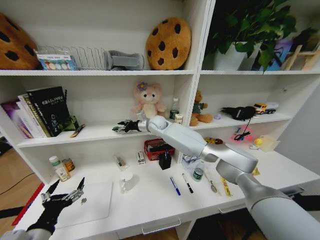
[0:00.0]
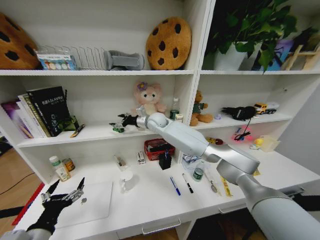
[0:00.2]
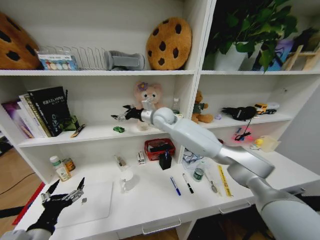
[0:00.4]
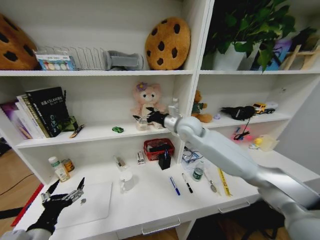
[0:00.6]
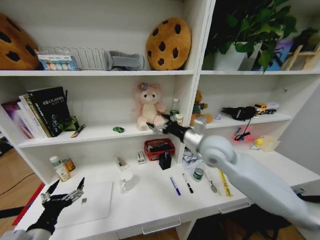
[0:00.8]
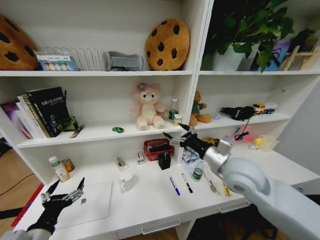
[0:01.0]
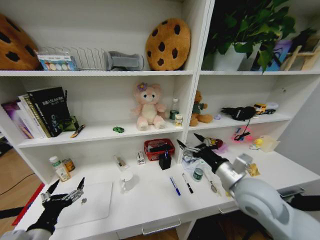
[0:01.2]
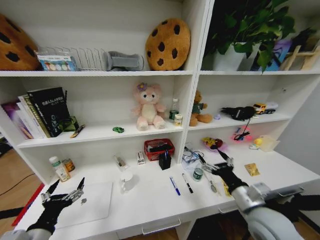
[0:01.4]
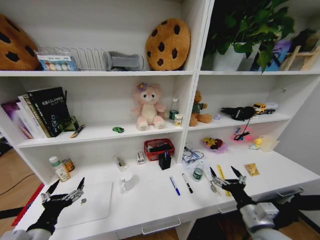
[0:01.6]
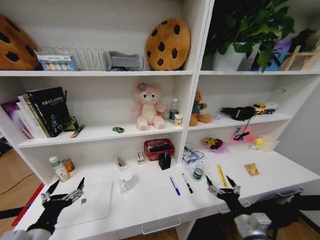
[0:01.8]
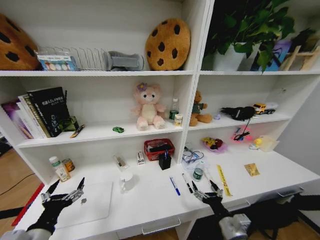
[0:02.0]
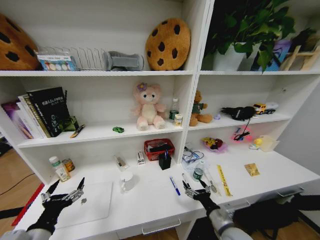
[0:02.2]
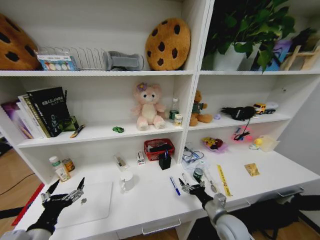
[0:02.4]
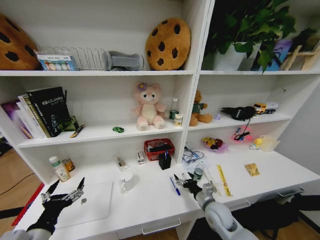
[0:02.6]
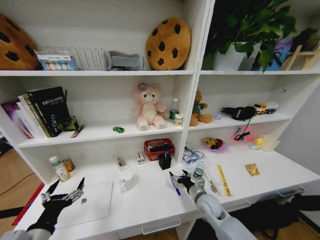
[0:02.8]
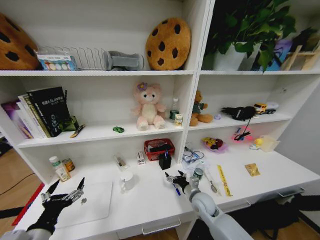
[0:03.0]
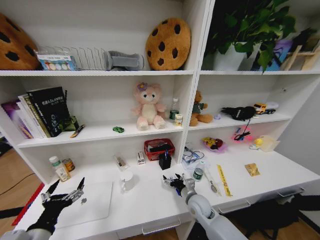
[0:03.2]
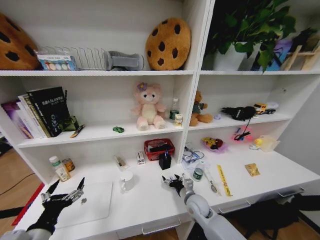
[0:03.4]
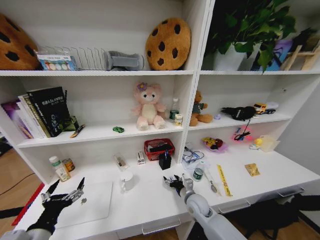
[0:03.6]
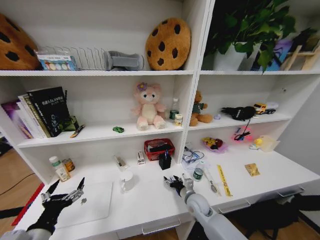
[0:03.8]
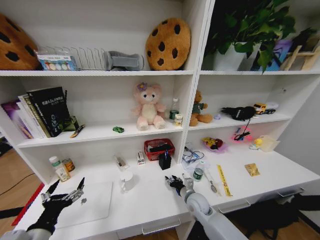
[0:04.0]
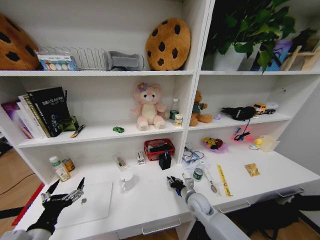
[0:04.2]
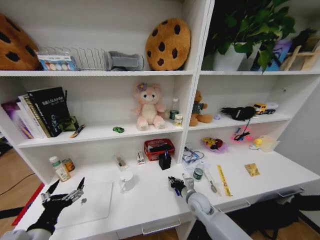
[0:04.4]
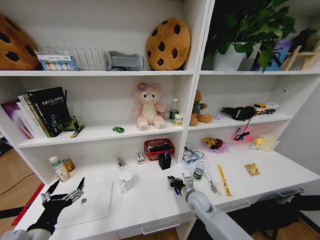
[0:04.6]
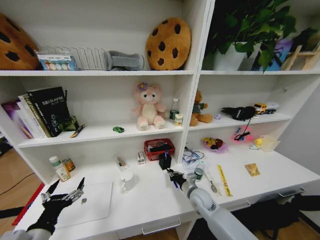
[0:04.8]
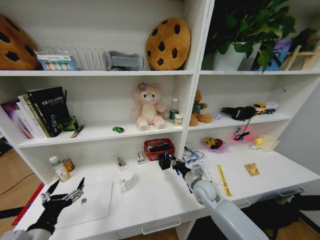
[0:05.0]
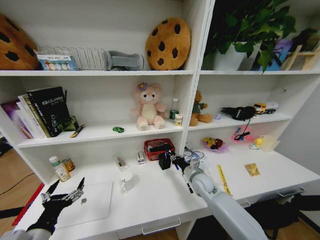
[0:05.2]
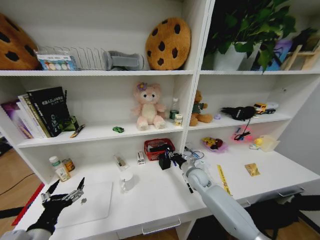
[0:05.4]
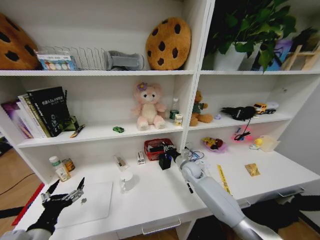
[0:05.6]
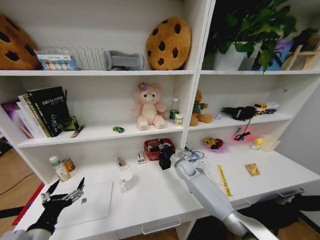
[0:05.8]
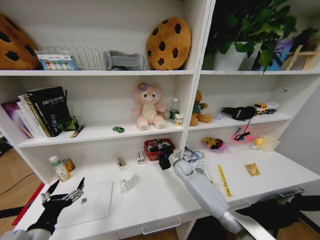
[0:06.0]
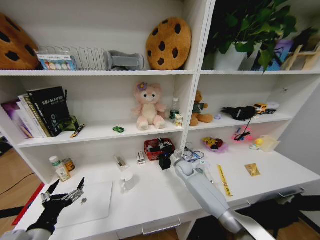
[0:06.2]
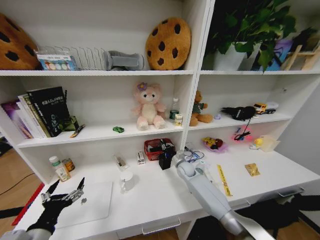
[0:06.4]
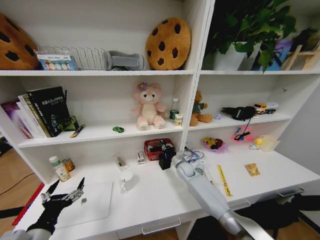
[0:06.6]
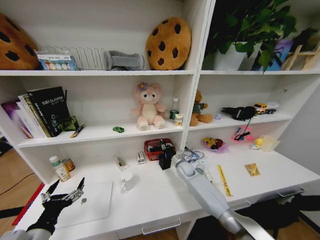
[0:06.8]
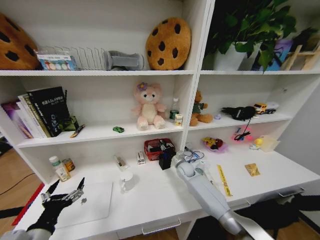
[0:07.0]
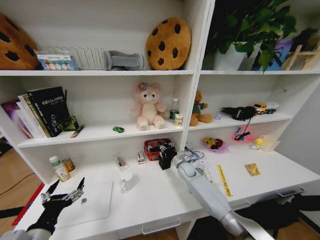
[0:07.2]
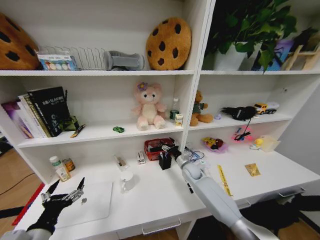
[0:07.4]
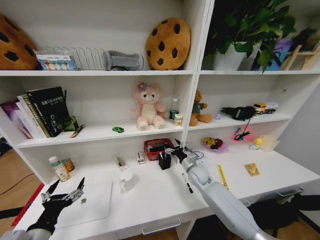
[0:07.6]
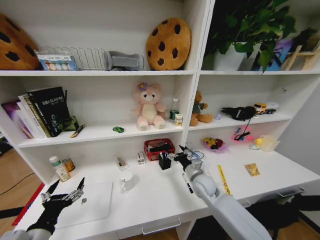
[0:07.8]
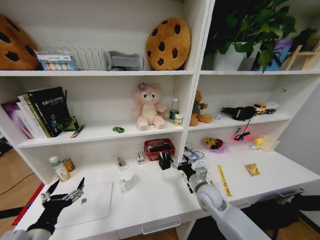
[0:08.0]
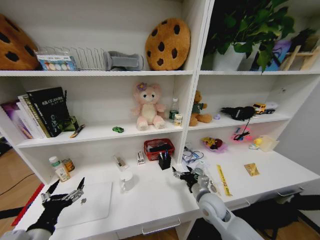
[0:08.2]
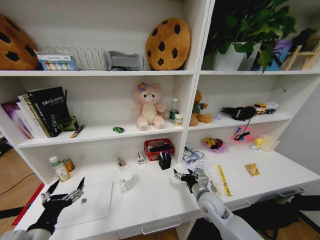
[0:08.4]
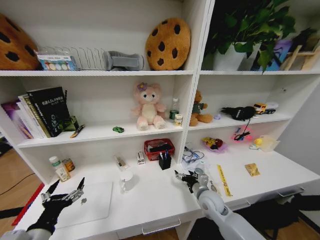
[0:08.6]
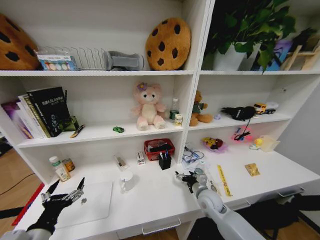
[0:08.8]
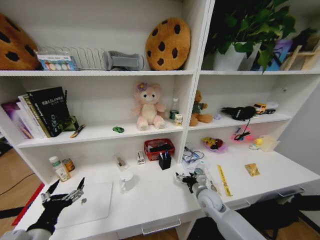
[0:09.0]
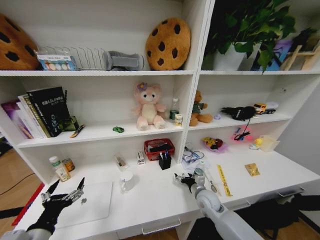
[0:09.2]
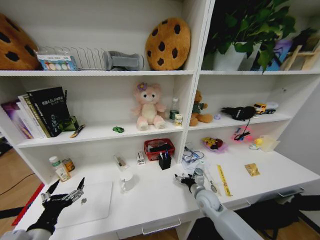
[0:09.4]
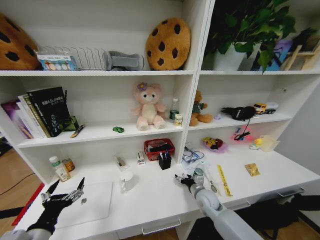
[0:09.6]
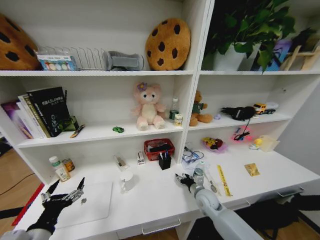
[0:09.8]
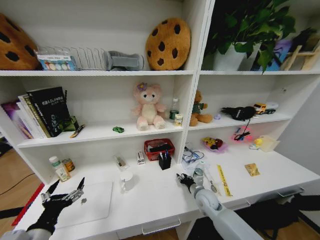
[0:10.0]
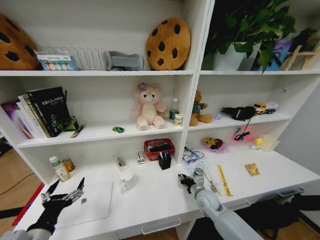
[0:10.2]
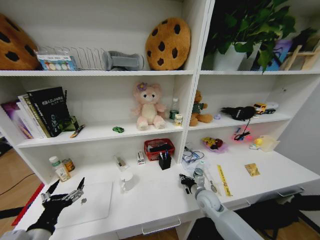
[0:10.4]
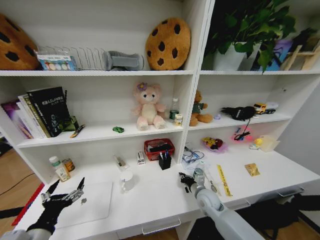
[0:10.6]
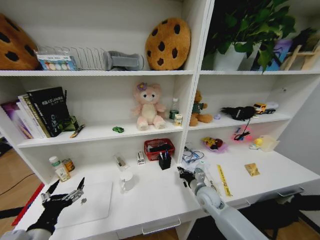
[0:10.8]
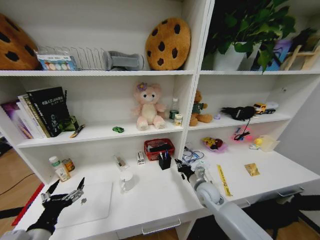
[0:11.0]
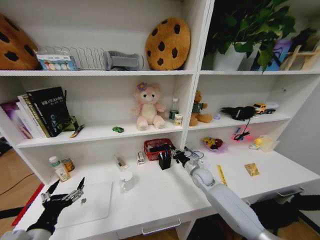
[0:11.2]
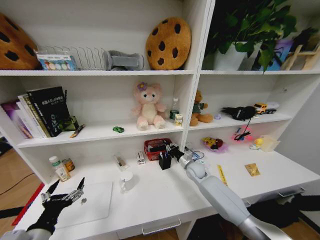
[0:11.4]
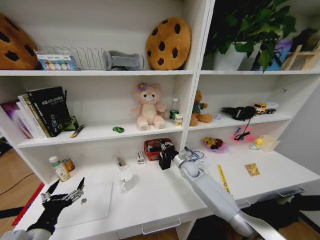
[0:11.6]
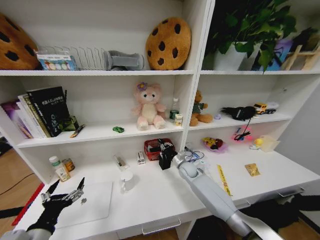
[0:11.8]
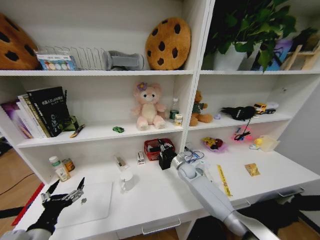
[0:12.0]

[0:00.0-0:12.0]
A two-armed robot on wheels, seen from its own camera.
Task of the whole recording: Organize the objects on the table.
0:00.0 to 0:01.6: The right gripper shifts roughly 50 cm backward and to the right, and opens up.
0:01.6 to 0:03.0: The right gripper moves forward, downward and to the left, some 20 cm.
0:03.0 to 0:04.4: The right gripper closes up.
0:04.4 to 0:06.0: The right gripper shifts about 15 cm forward.
0:06.0 to 0:07.6: The right gripper heads backward and to the right, covering approximately 10 cm, and opens up.
0:07.6 to 0:09.0: The right gripper heads backward, covering about 10 cm.
0:09.0 to 0:10.4: The right gripper closes its fingers.
0:10.4 to 0:12.0: The right gripper shifts about 15 cm forward.

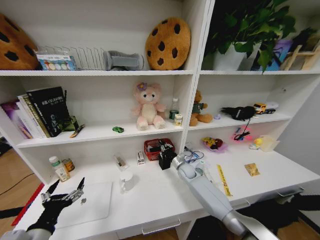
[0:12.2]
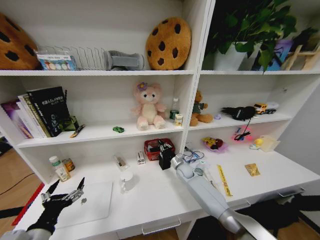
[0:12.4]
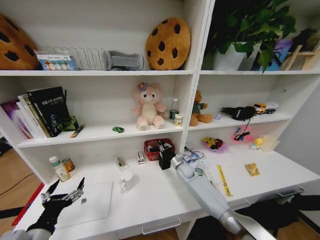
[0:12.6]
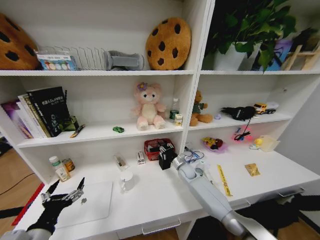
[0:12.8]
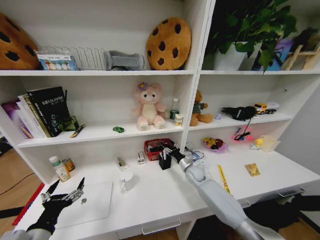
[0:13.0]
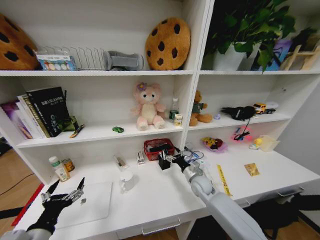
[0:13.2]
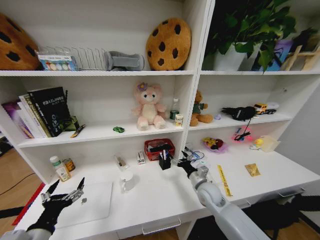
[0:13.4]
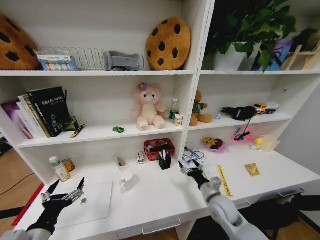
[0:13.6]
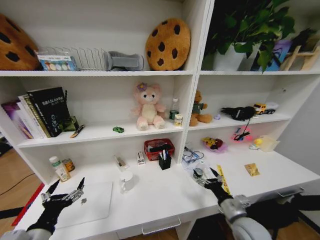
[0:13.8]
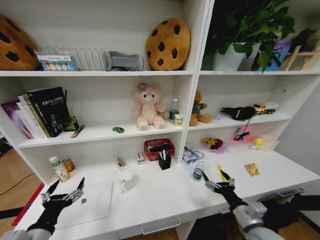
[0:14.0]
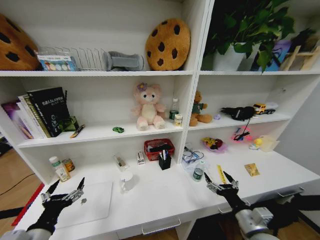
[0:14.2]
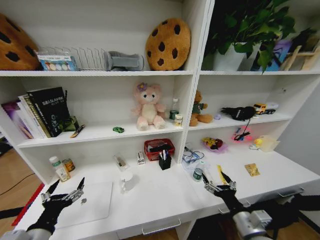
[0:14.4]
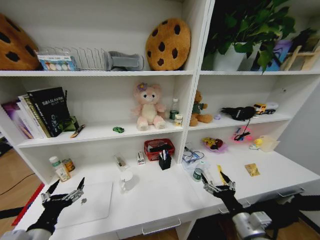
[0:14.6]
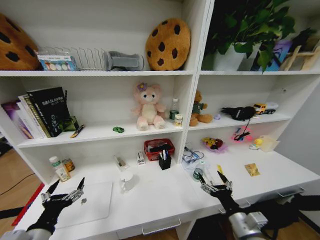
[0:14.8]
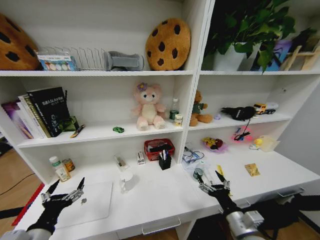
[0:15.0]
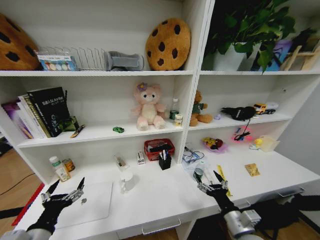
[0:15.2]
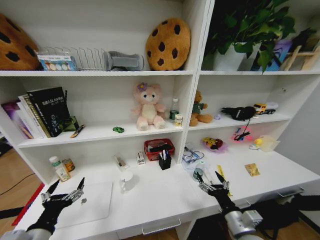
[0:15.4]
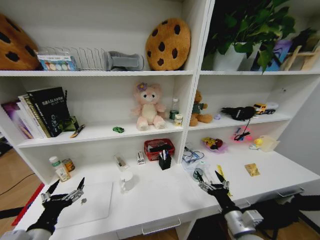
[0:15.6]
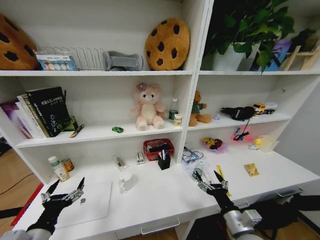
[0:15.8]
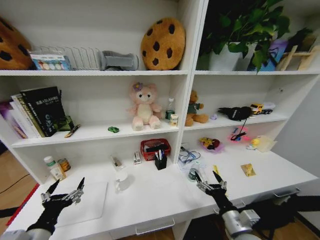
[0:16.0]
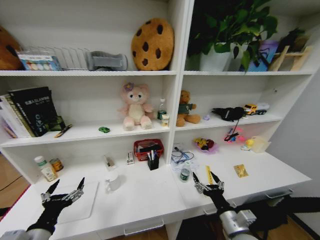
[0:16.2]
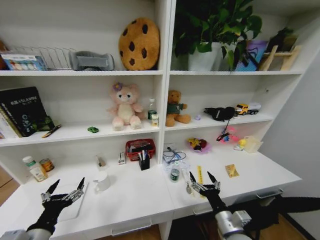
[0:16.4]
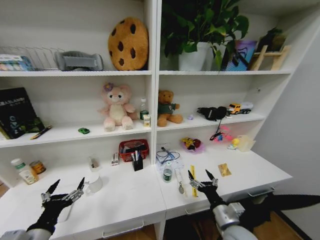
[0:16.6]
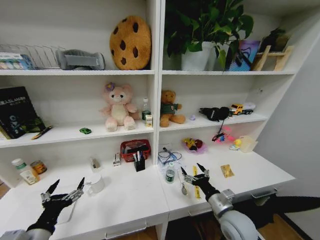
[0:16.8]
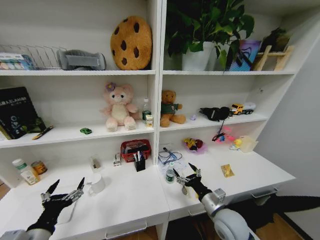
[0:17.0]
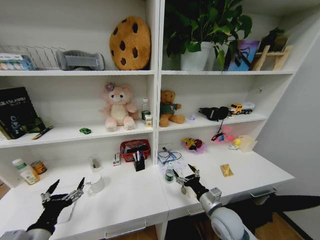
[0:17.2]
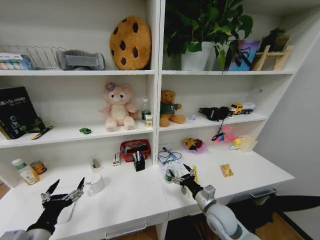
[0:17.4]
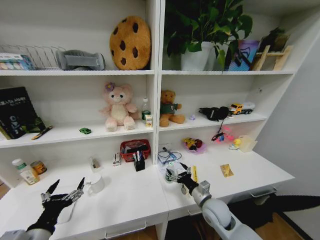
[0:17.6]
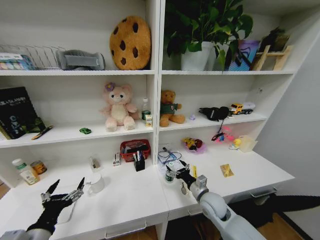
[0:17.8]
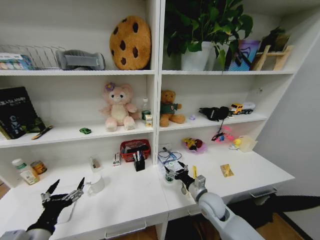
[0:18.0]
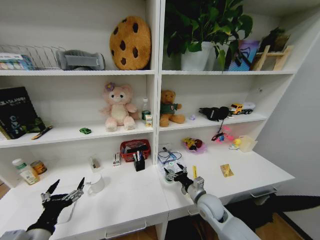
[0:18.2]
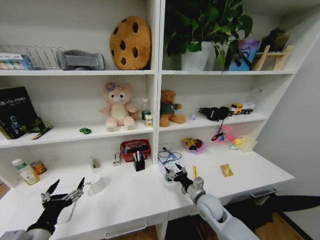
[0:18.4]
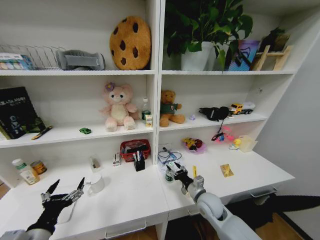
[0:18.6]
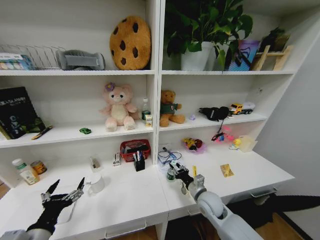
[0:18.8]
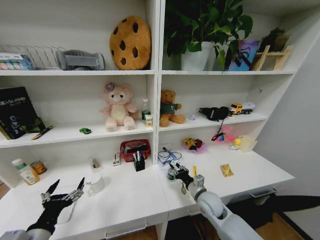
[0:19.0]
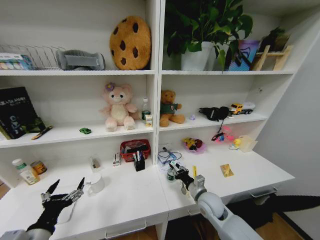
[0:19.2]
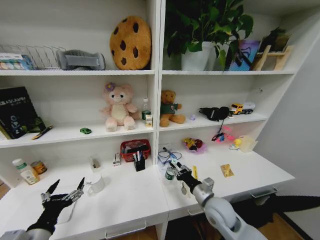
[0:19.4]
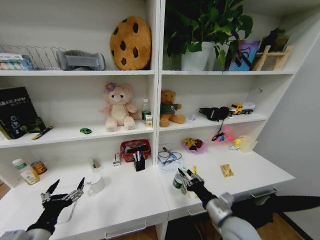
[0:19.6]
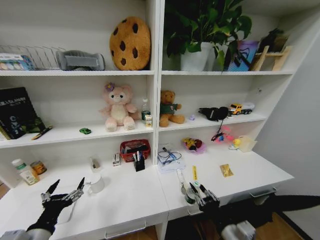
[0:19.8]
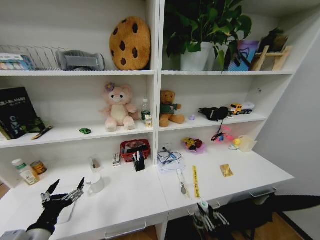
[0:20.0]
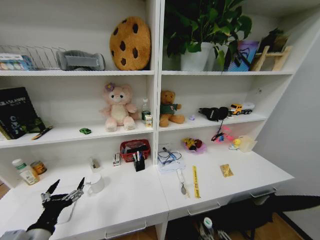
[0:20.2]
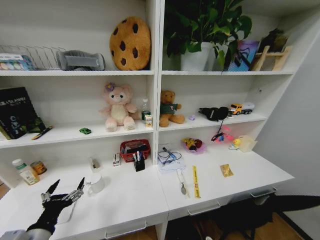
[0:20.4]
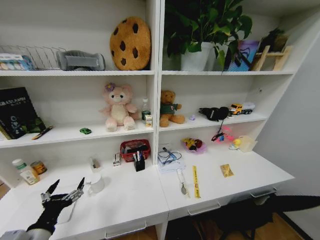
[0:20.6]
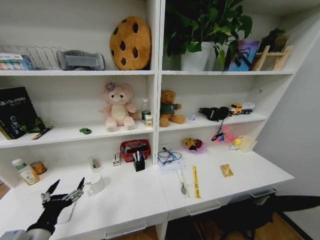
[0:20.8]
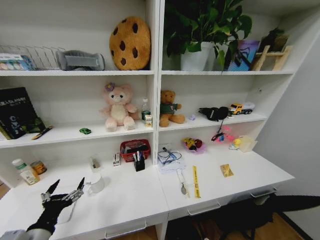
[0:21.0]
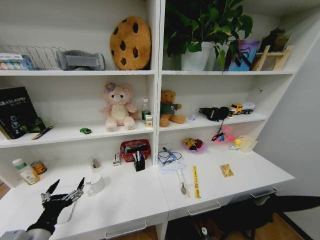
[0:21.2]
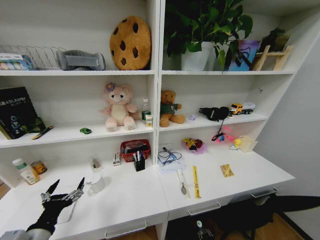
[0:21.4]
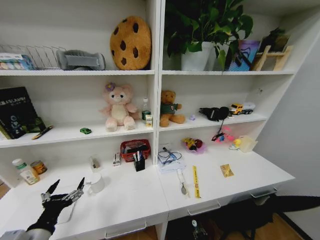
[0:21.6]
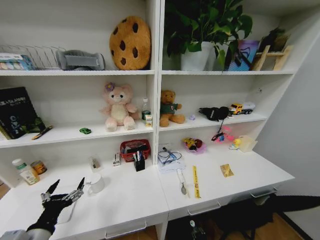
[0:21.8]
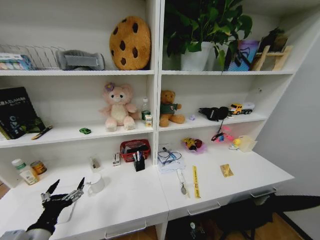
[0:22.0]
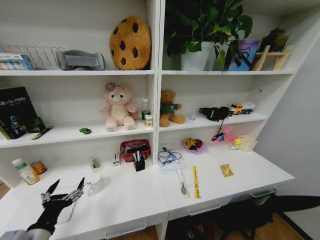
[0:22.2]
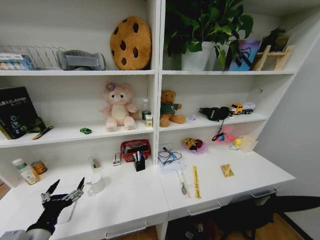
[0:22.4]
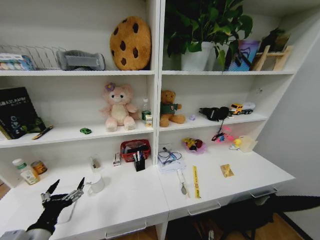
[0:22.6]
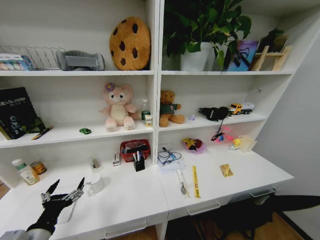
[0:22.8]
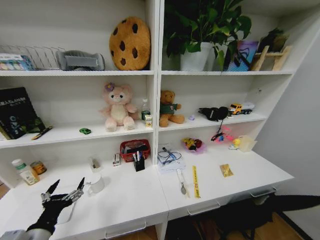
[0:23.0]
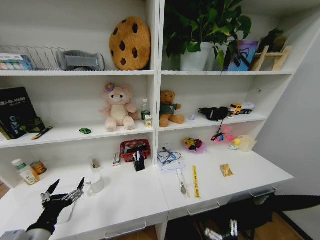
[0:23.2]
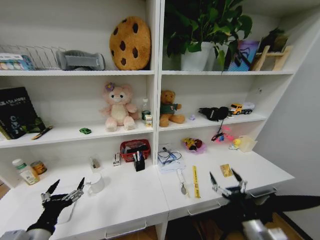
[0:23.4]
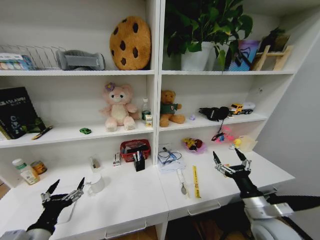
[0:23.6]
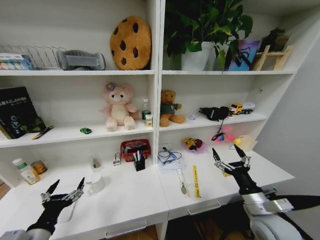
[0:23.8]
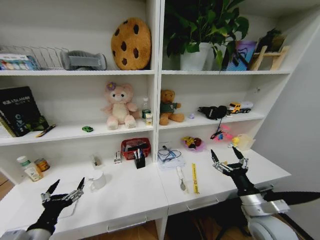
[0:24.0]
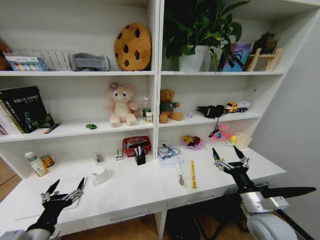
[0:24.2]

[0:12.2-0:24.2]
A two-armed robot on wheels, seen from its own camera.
Task of the whole recording: Organize the objects on the table.
0:12.2 to 0:13.8: The right gripper moves backward, approximately 30 cm, and opens.
0:13.8 to 0:15.2: The right gripper goes roughly 5 cm backward.
0:16.6 to 0:18.2: The right gripper shifts some 10 cm forward.
0:18.2 to 0:19.8: The right gripper goes some 20 cm backward, and closes its fingers.
0:19.8 to 0:21.2: The right gripper shifts some 35 cm downward.
0:22.6 to 0:24.2: The right gripper moves upward, some 40 cm.
